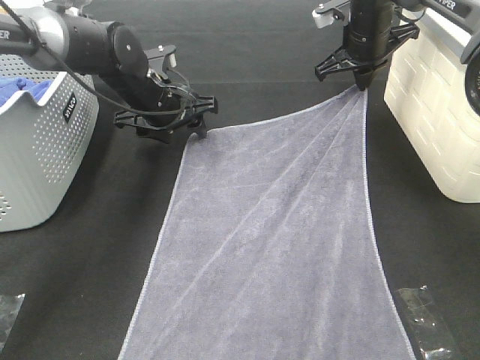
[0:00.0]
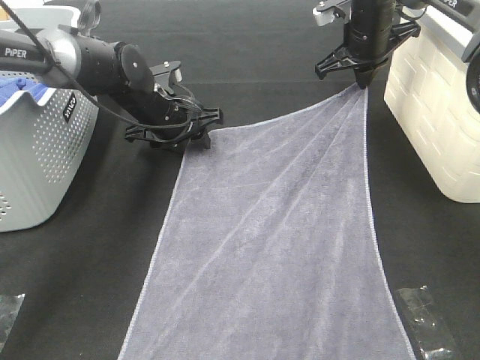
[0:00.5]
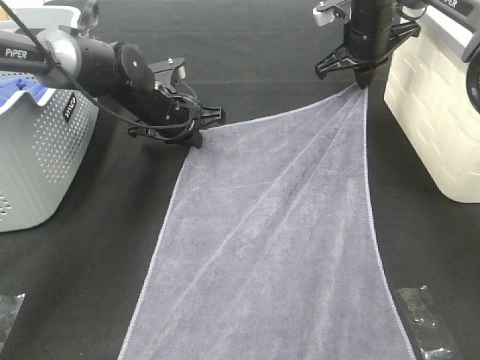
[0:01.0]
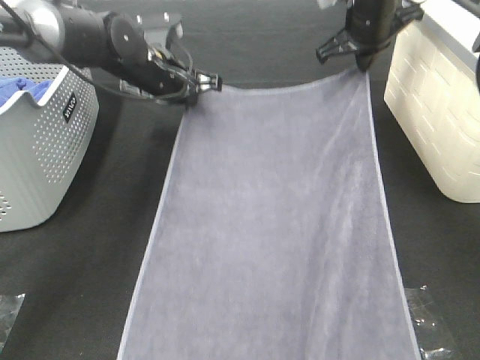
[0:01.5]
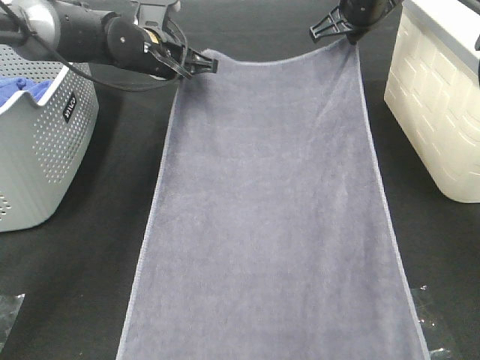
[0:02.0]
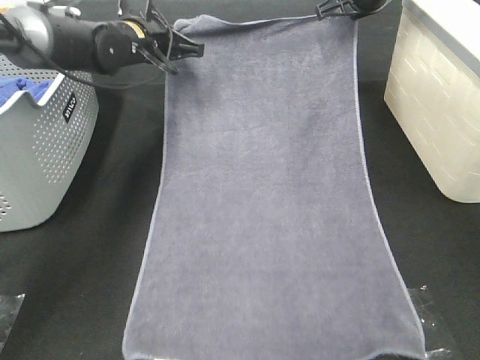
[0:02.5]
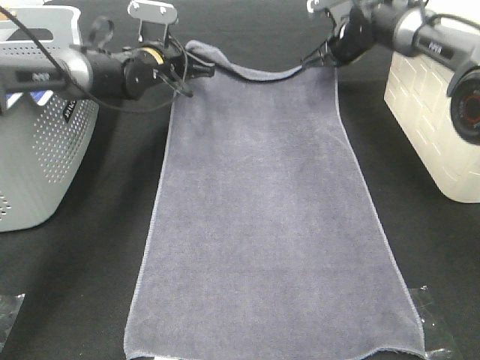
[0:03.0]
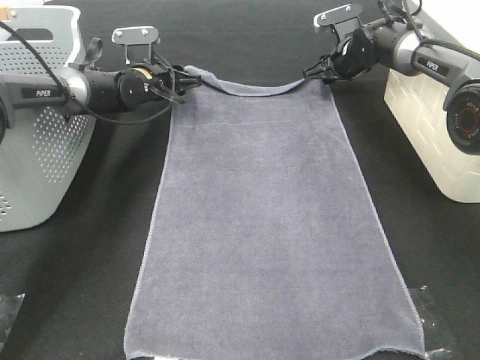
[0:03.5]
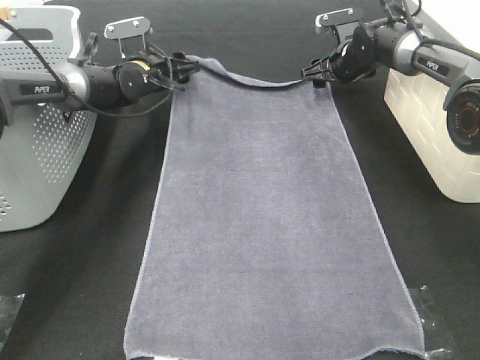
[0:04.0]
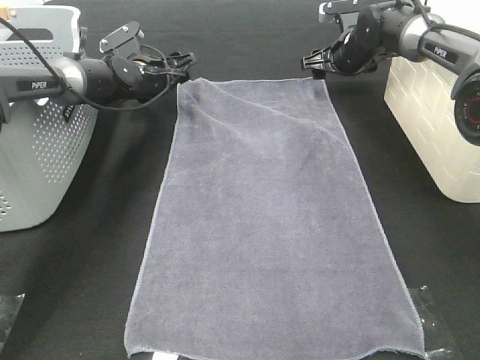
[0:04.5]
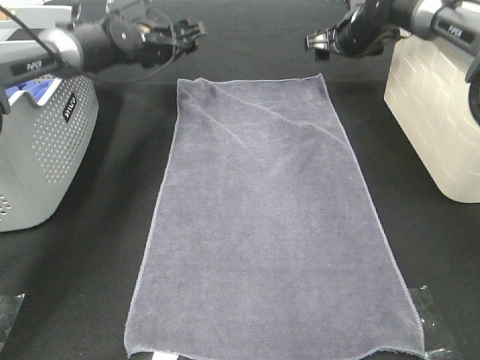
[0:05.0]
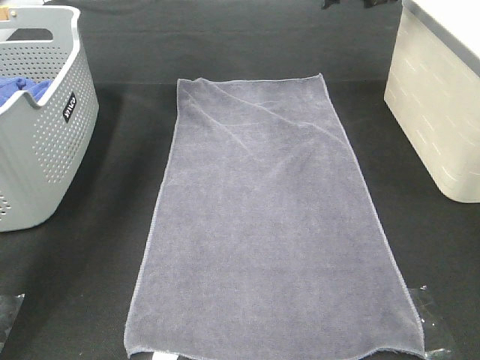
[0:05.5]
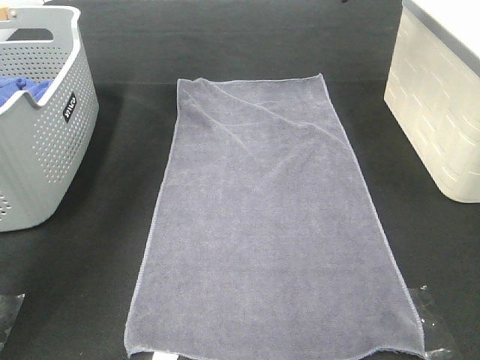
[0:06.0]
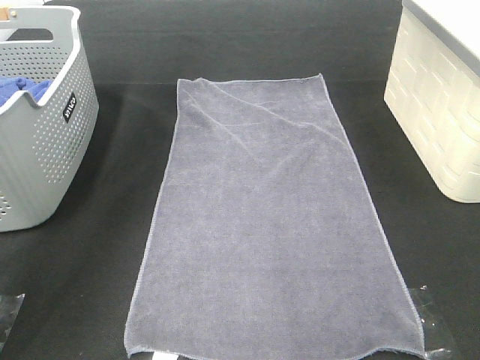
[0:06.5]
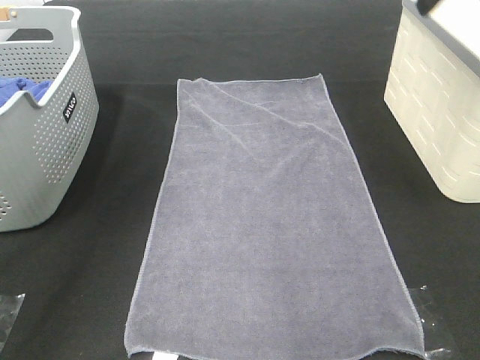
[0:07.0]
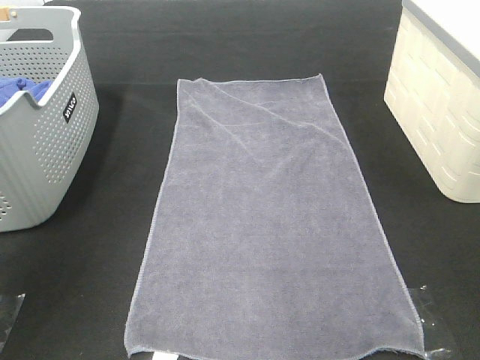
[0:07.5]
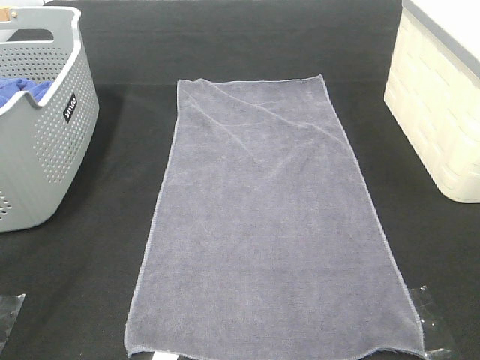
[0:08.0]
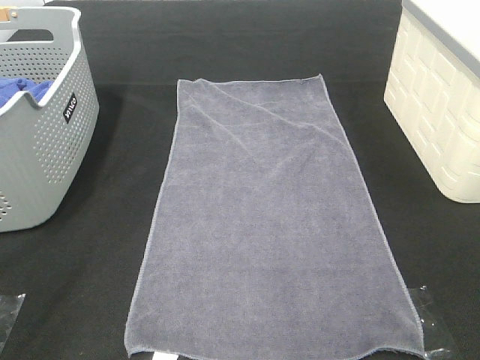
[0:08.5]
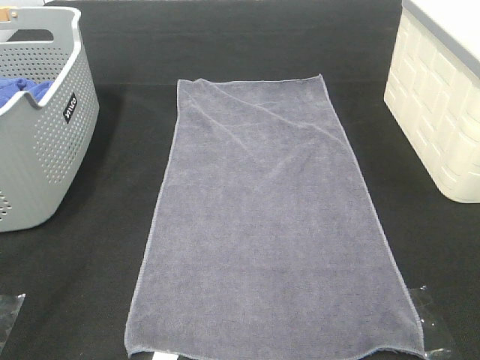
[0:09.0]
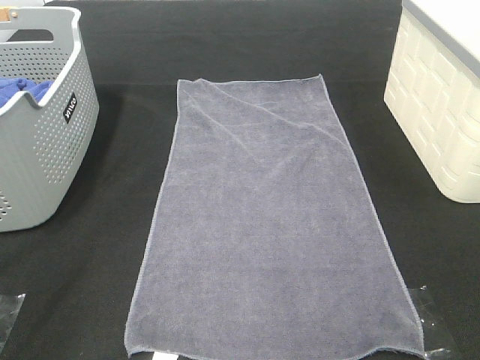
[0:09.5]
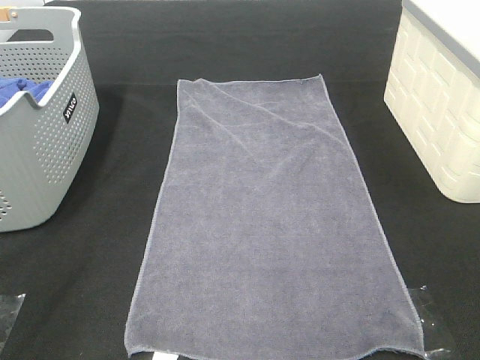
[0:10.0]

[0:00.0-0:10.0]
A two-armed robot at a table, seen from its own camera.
Task of the whole recording: Remove the towel and place it.
0:00.0 to 0:02.0: The left gripper changes place by approximately 5 cm, and closes.
0:02.0 to 0:04.0: The left gripper travels downward and forward by approximately 10 cm, and opens; the right gripper shifts approximately 10 cm downward, and opens.
0:04.0 to 0:06.0: The left gripper heads upward, covering roughly 30 cm, while the right gripper shifts about 25 cm upward and backward.
0:06.0 to 0:08.0: Both grippers travel together backward, roughly 40 cm.

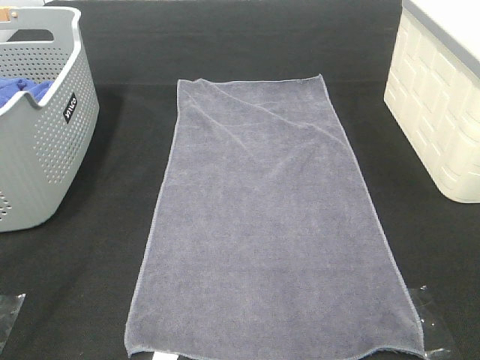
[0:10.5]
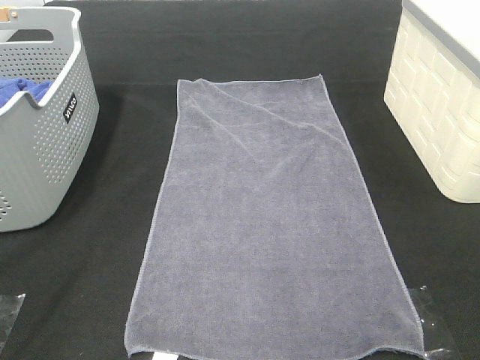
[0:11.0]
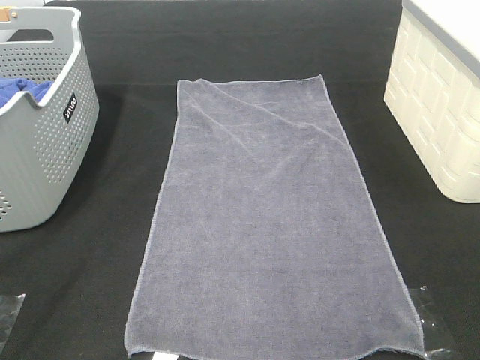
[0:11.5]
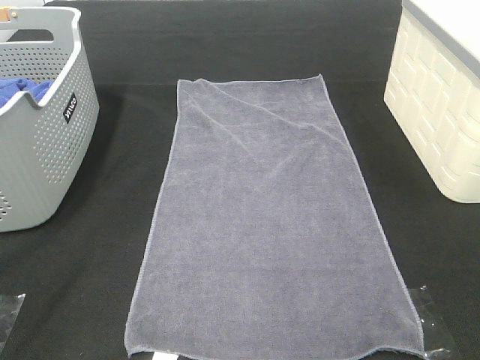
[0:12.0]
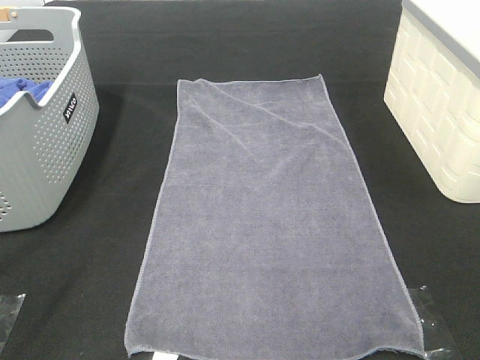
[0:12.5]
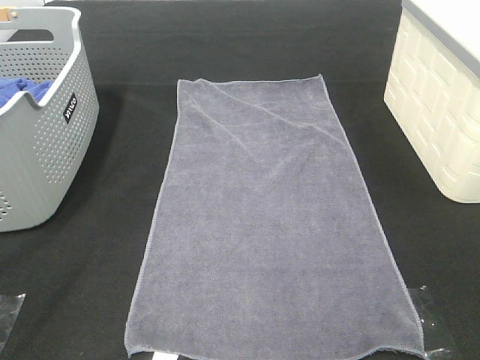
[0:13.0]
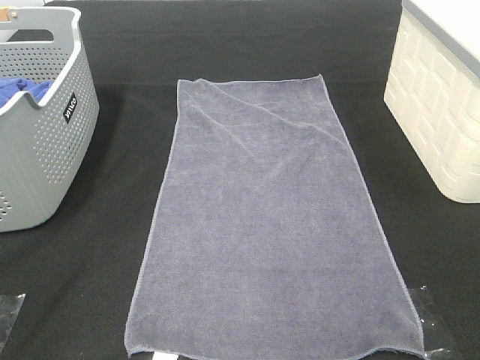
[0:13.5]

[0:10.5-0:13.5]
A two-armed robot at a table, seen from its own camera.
Task of the whole recording: Remove the towel and place it.
0:12.0 to 0:13.5: Both grippers stay put.

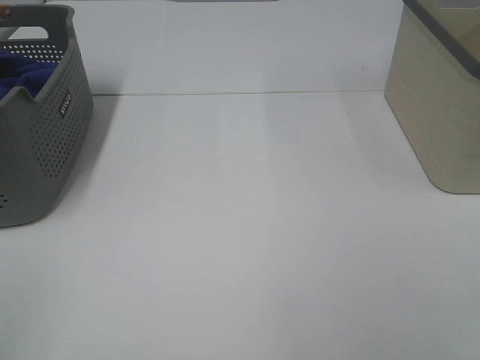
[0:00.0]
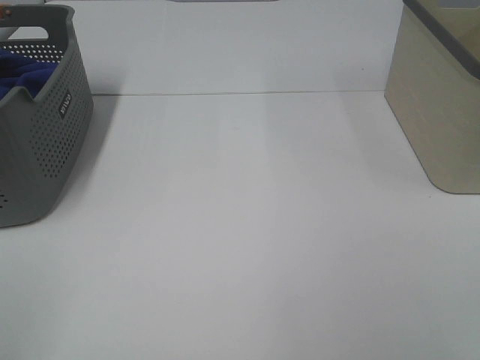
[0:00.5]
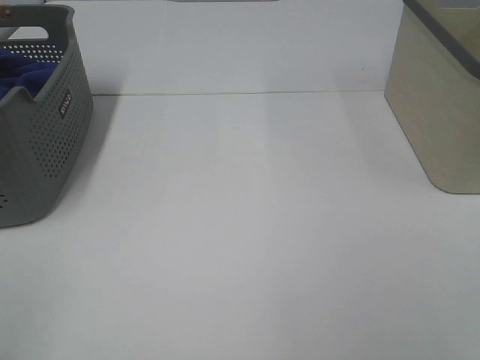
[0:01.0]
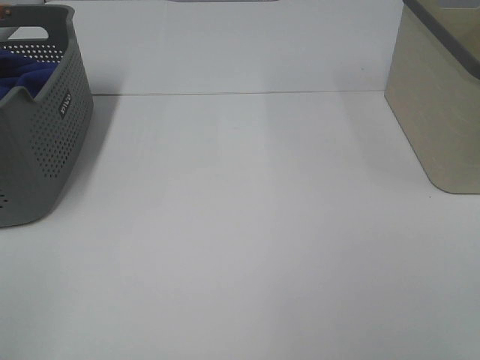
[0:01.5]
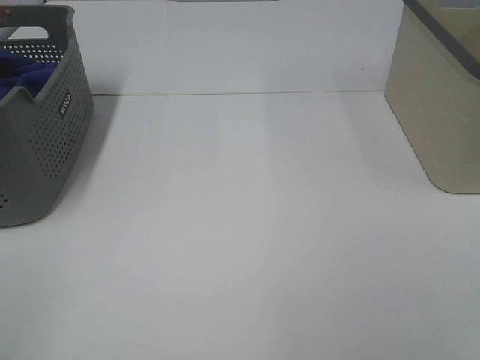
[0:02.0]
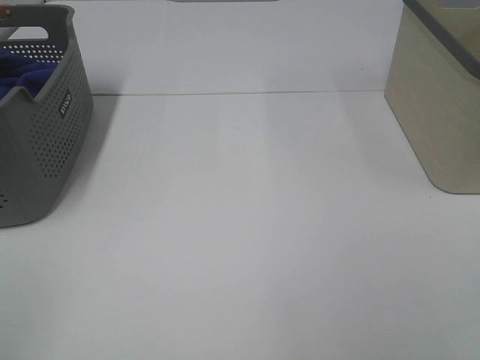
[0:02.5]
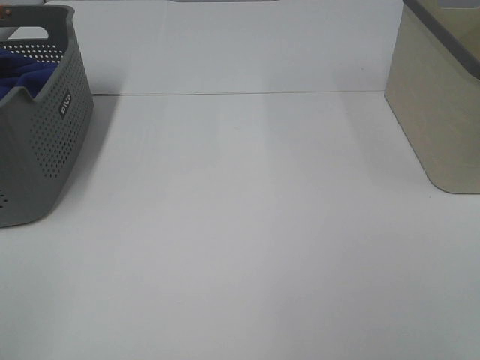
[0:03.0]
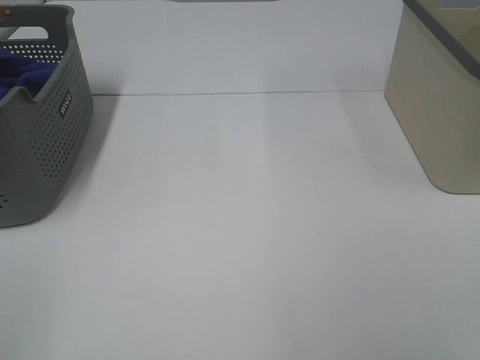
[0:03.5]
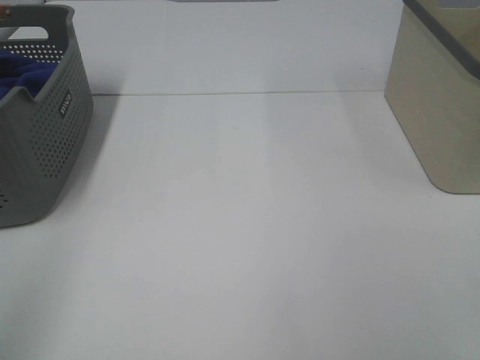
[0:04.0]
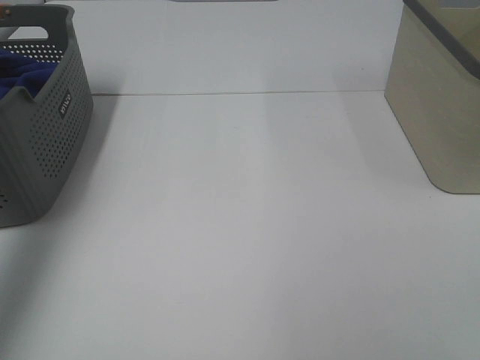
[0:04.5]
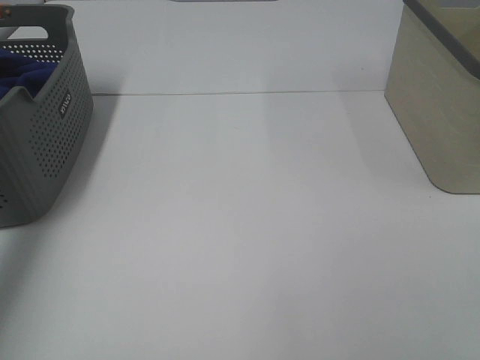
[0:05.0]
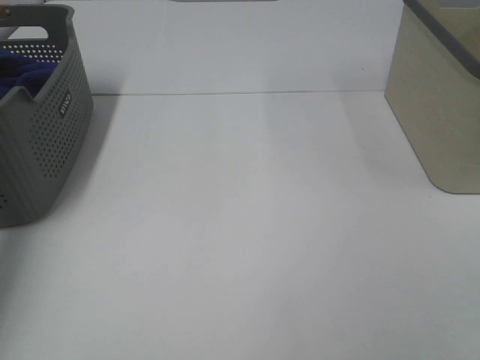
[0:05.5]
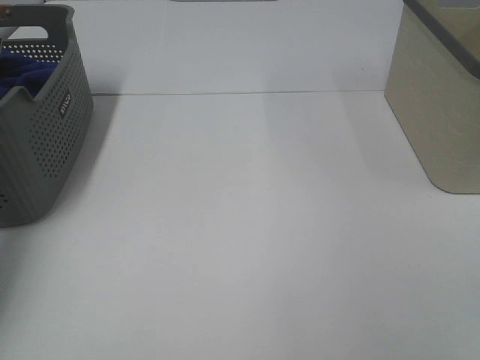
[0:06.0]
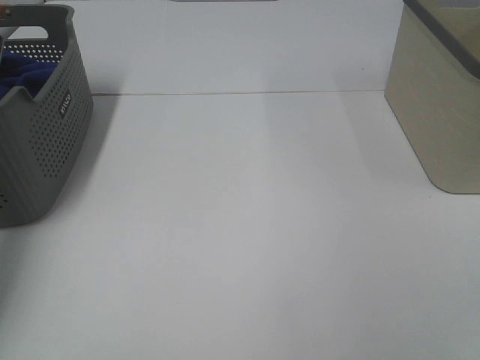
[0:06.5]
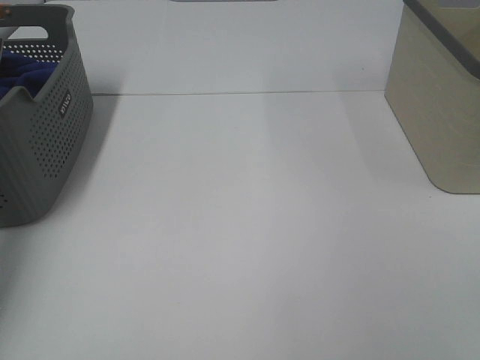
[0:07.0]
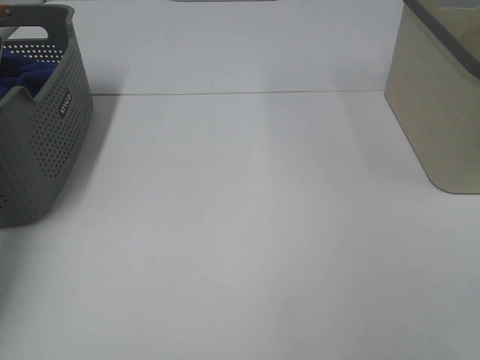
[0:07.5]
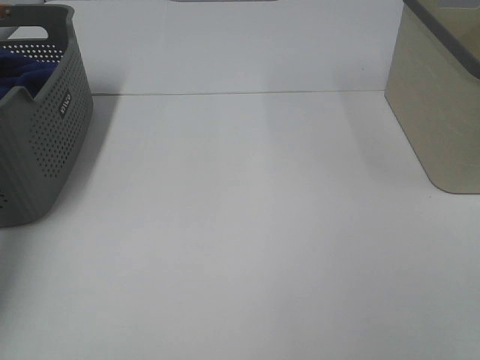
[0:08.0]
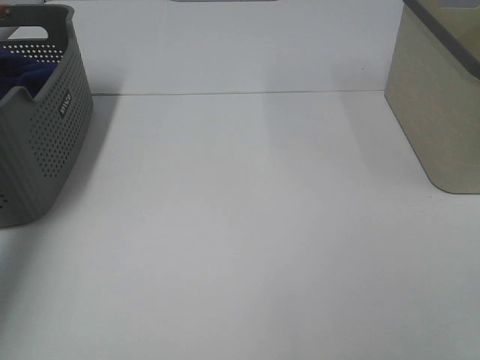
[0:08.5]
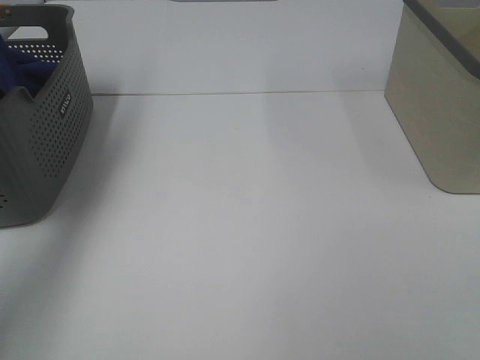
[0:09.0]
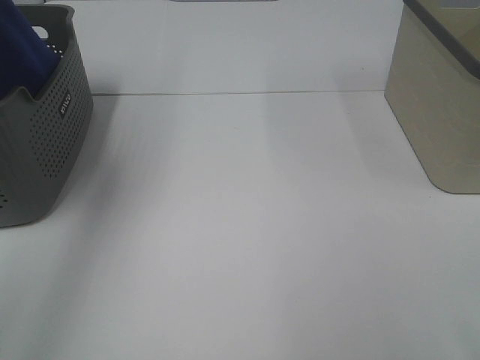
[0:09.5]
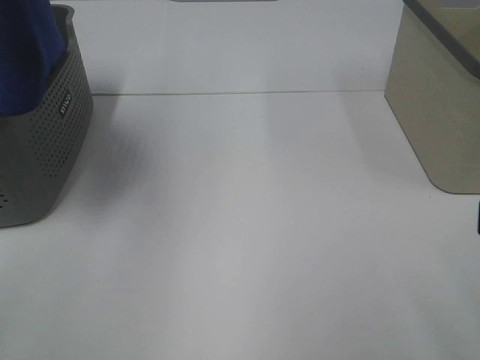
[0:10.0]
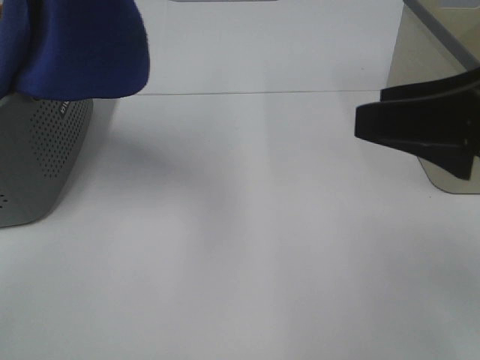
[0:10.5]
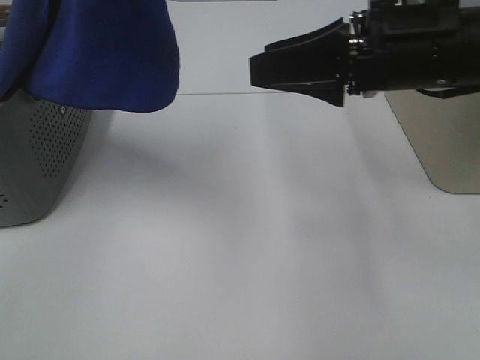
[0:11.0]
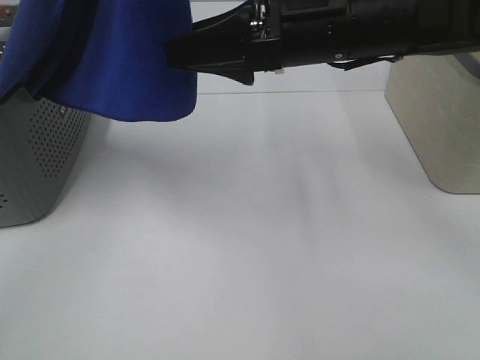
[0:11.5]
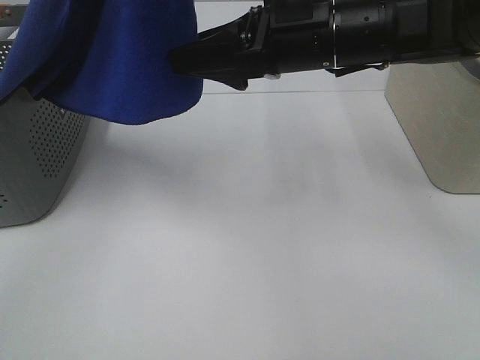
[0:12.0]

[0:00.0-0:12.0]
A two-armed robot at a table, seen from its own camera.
Task of the whole recording: Remove the towel and place it.
0:00.0 to 0:02.0: Neither gripper changes place.
0:04.0 to 0:06.0: The left gripper heads forward and downward, covering some 40 cm.
0:08.0 to 0:10.0: The right gripper shifts roughly 5 cm forward. Meanwhile the left gripper shifts roughly 40 cm upward, to the right and backward.
0:10.0 to 0:12.0: The right gripper shifts roughly 30 cm forward and to the left. Meanwhile the left gripper goes approximately 10 cm to the right and backward.
